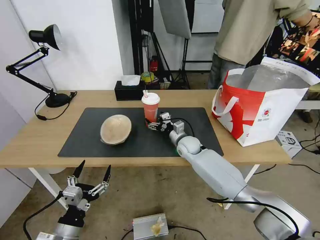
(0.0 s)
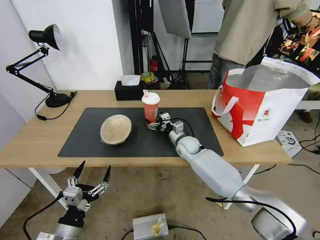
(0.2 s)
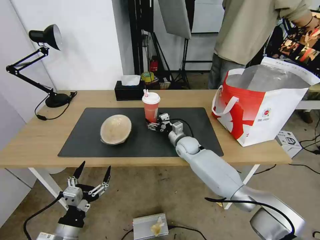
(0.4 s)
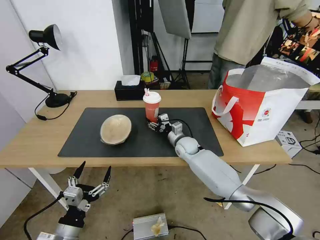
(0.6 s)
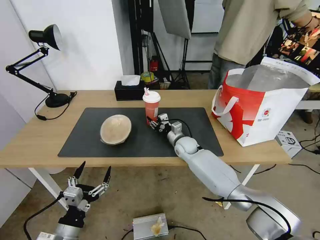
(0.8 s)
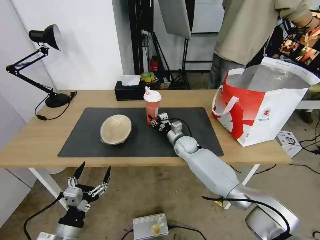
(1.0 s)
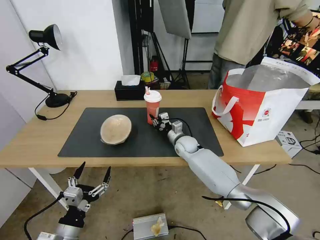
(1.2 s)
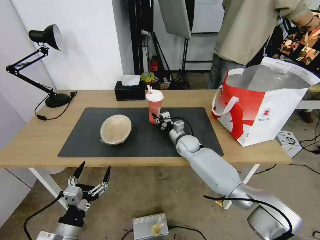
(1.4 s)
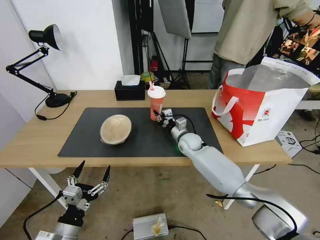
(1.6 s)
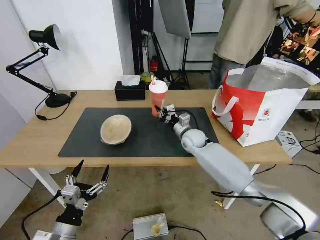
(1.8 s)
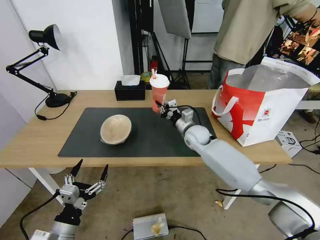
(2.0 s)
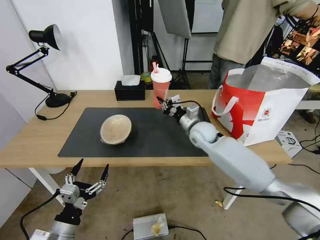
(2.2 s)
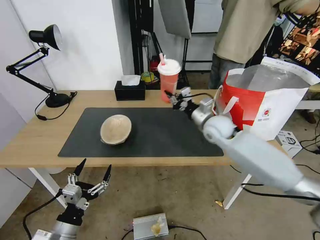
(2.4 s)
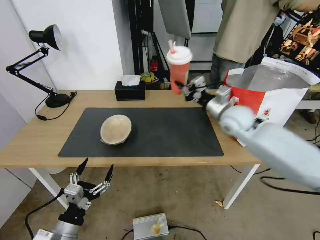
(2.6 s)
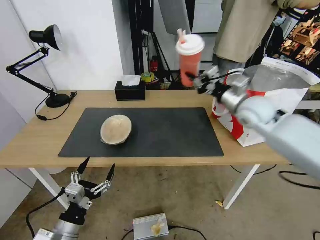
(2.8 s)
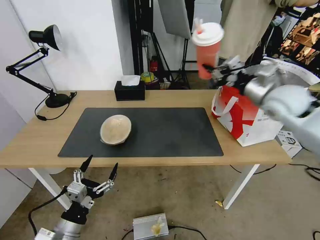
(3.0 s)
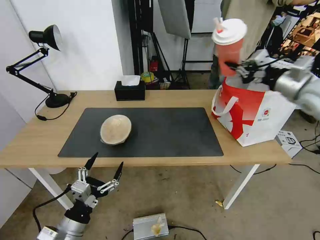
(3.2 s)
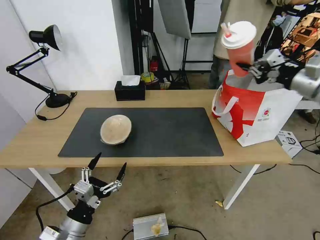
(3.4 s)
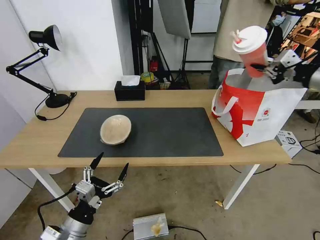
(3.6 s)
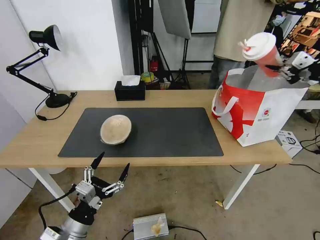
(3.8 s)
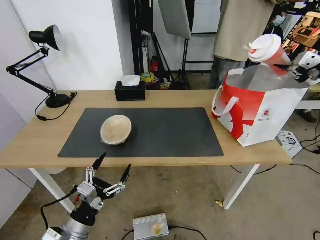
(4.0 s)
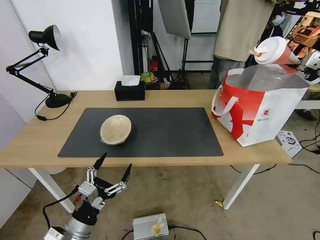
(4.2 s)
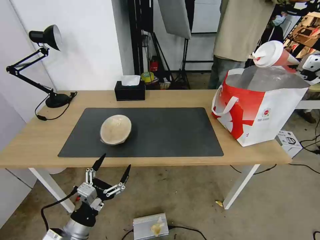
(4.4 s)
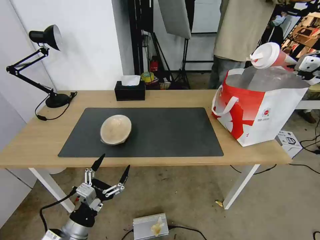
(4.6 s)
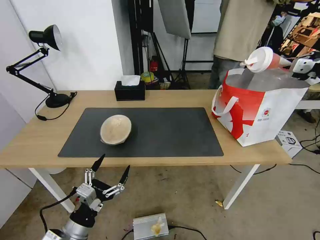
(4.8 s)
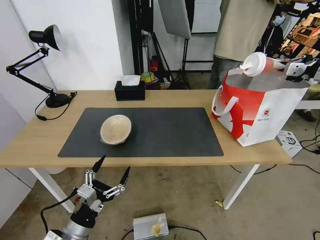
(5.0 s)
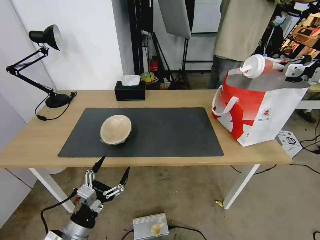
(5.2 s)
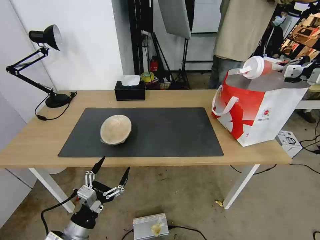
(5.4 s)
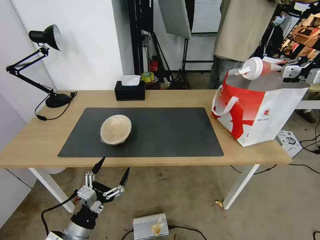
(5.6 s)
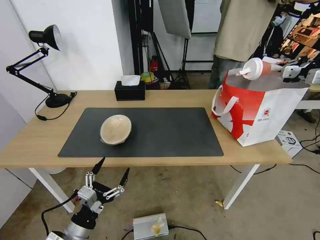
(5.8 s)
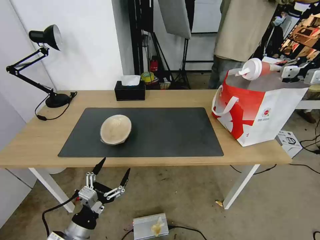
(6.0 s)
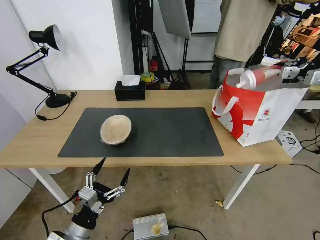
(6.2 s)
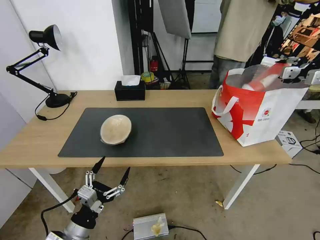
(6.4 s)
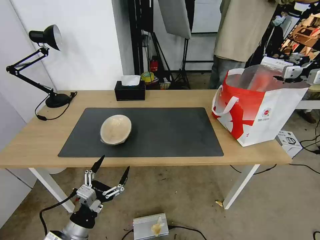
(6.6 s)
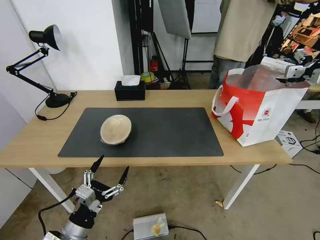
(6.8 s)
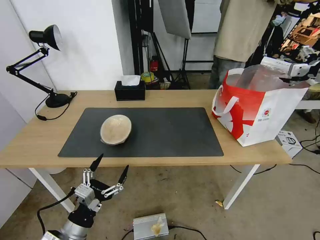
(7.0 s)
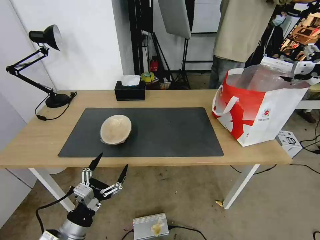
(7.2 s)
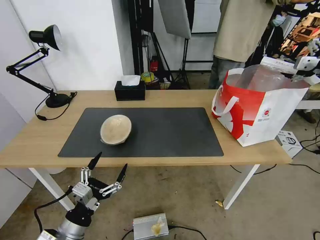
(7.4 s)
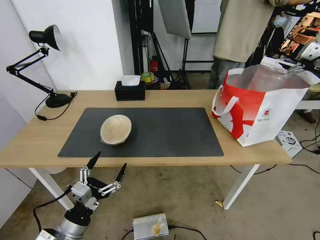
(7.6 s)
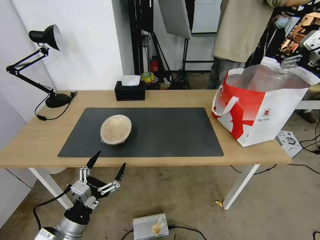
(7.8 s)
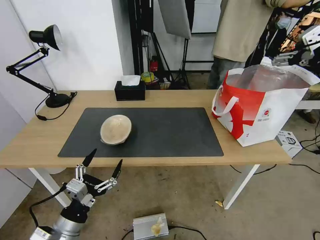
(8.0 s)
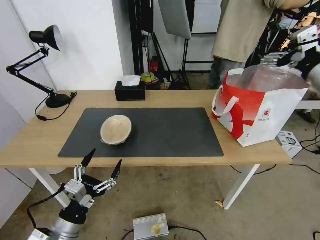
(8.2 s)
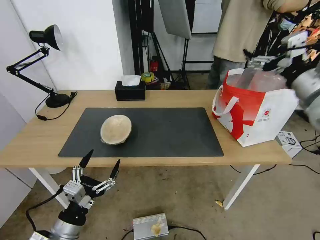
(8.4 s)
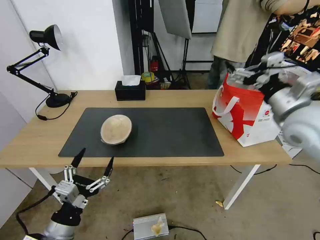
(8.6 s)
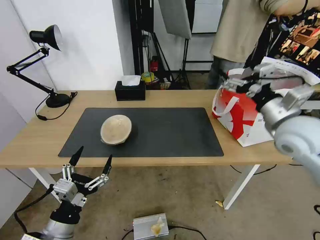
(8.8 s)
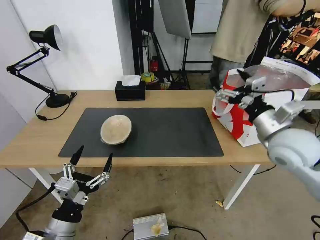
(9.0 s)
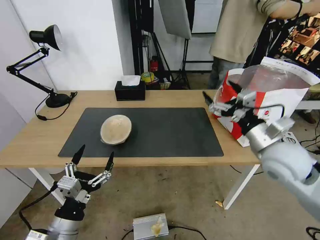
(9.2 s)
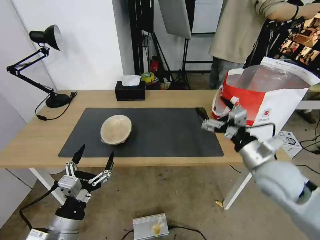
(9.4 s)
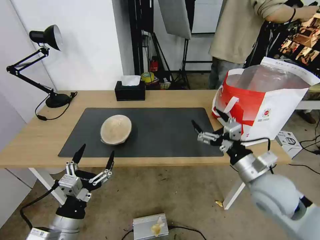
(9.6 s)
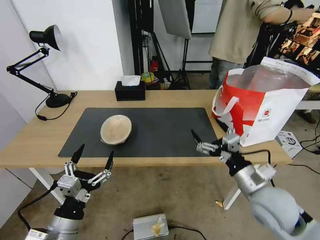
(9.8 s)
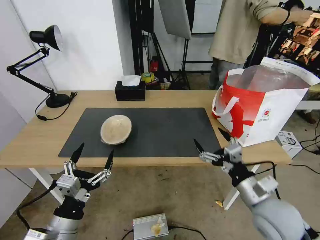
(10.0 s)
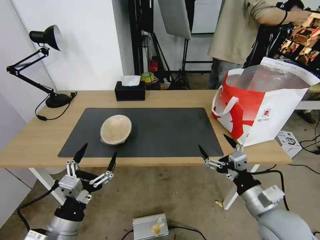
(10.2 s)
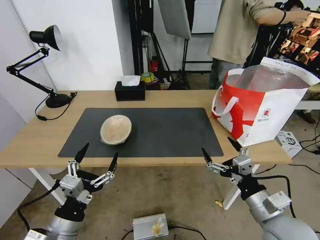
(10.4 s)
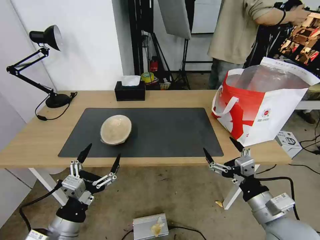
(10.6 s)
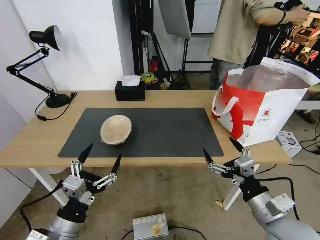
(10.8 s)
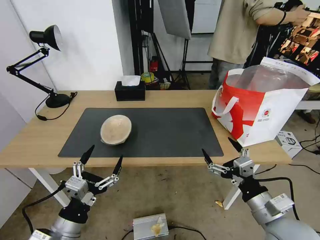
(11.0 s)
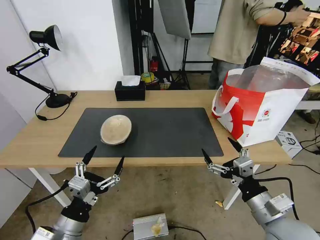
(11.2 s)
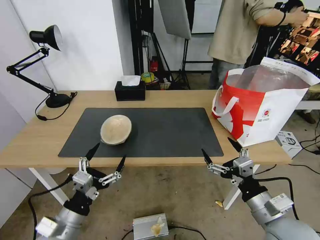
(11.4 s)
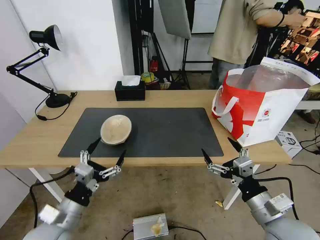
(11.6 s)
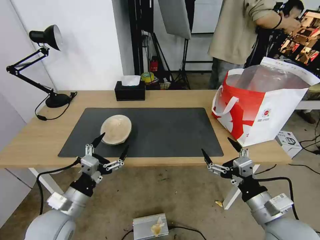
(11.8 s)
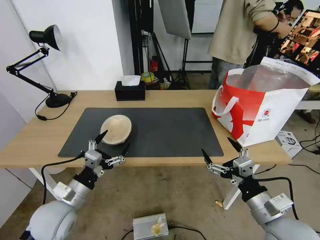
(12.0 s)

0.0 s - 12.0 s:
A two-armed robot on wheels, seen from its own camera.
Task of the whole recording: Pick up the trash from the table and place it into the takeout bag.
0.0 s - 1.6 s: The right gripper closes up.
1.6 s - 3.0 s: The right gripper travels upward and to the right by some 35 cm.
3.0 s - 4.4 s: The right gripper shifts some 20 cm to the right and upward.
4.4 s - 6.0 s: The right gripper travels forward by approximately 5 cm.
6.0 s - 7.6 s: The right gripper goes about 5 cm backward, and opens.
7.6 s - 9.0 s: The right gripper moves to the left, downward and backward, about 25 cm.
9.0 s - 10.4 s: The right gripper is displaced backward and downward by approximately 20 cm.
10.4 s - 12.0 s: The left gripper travels forward by about 10 cm.

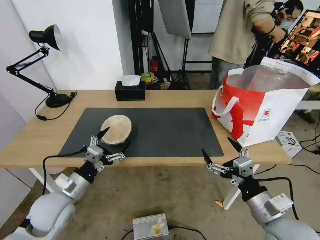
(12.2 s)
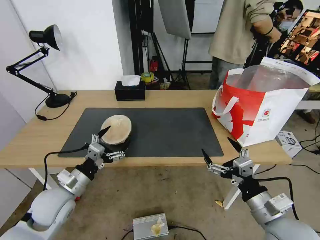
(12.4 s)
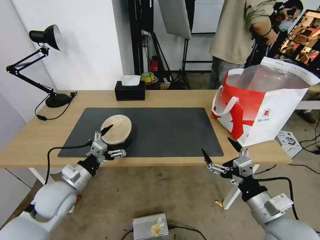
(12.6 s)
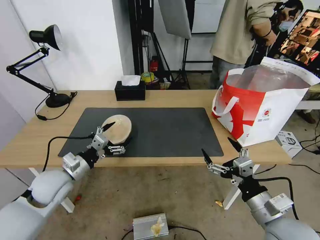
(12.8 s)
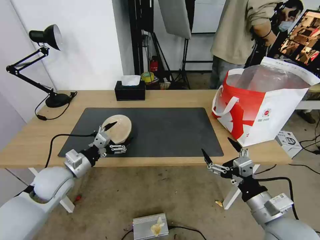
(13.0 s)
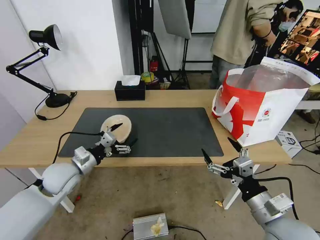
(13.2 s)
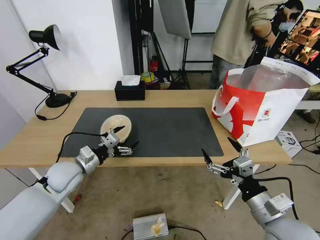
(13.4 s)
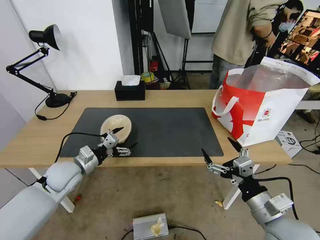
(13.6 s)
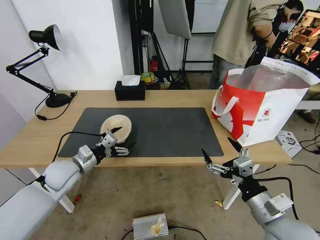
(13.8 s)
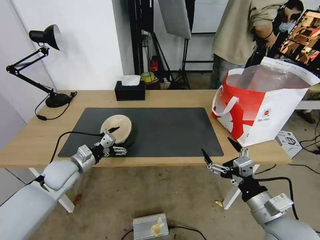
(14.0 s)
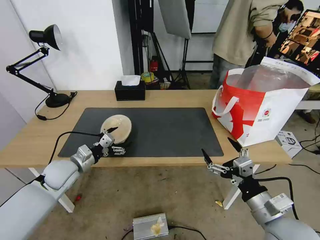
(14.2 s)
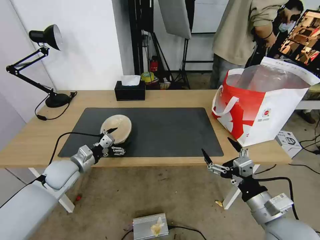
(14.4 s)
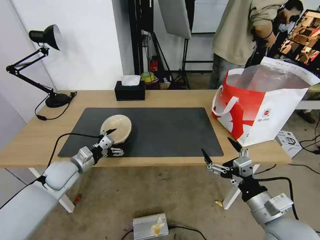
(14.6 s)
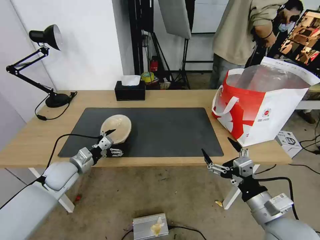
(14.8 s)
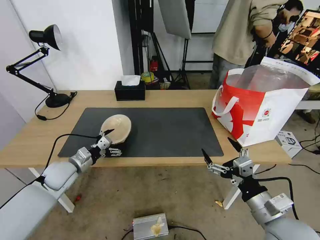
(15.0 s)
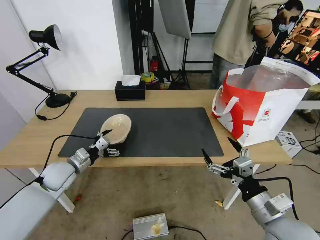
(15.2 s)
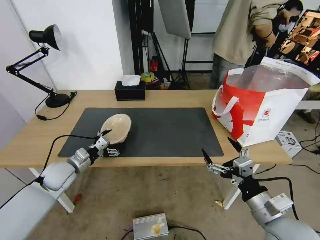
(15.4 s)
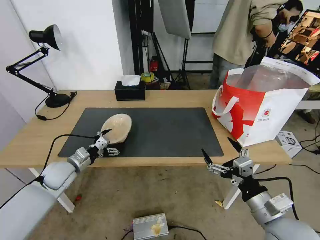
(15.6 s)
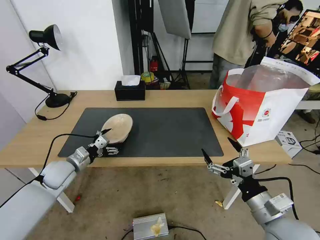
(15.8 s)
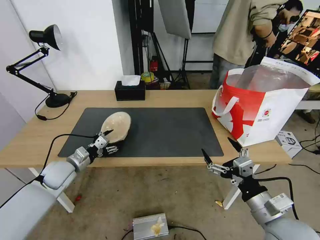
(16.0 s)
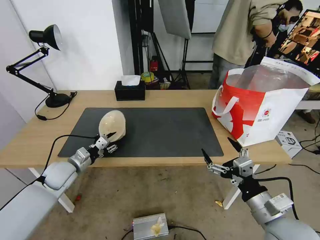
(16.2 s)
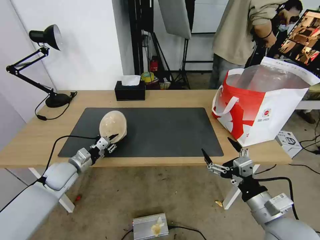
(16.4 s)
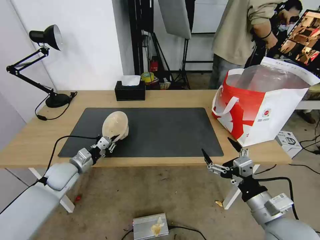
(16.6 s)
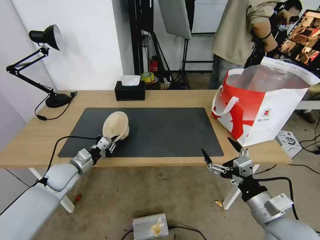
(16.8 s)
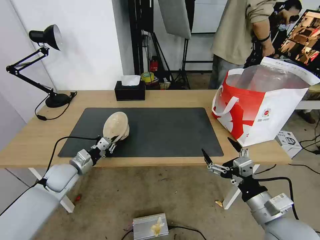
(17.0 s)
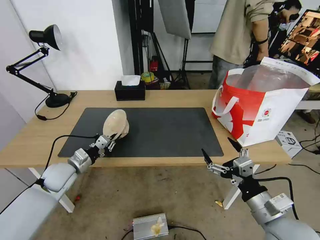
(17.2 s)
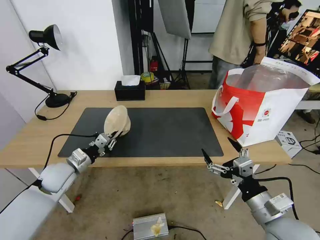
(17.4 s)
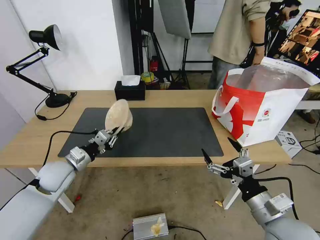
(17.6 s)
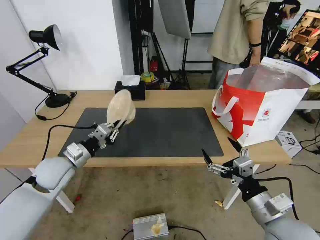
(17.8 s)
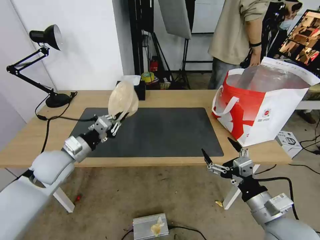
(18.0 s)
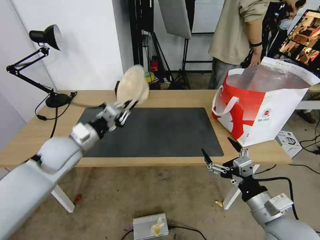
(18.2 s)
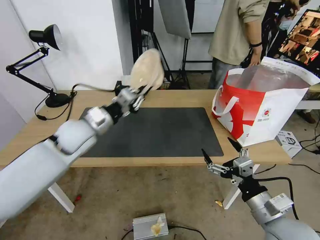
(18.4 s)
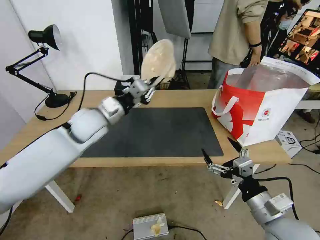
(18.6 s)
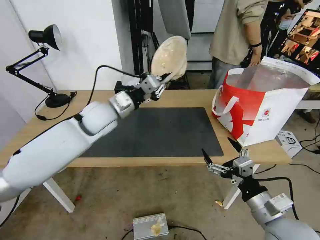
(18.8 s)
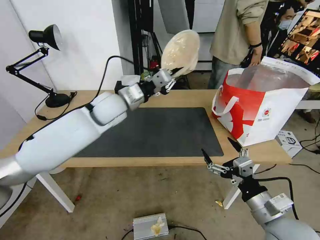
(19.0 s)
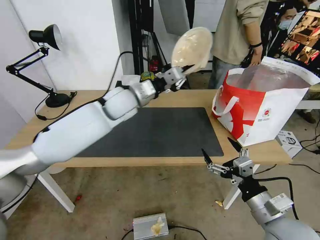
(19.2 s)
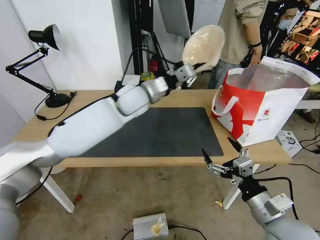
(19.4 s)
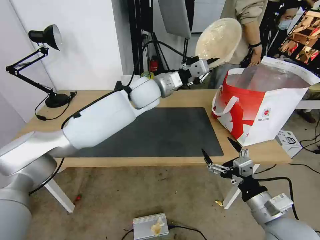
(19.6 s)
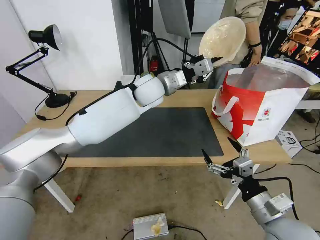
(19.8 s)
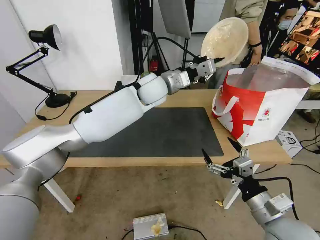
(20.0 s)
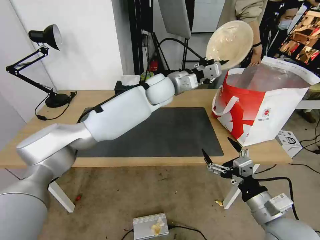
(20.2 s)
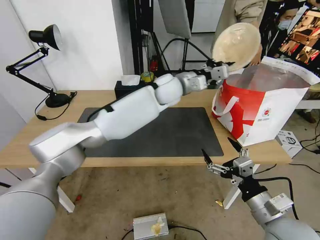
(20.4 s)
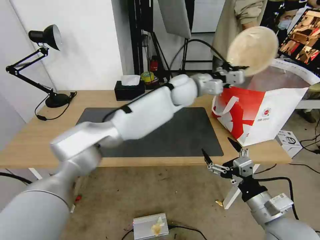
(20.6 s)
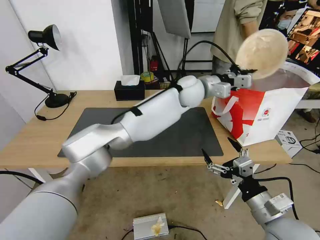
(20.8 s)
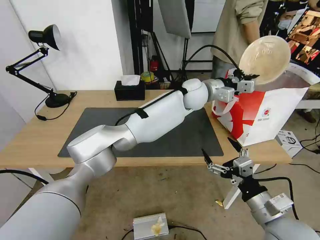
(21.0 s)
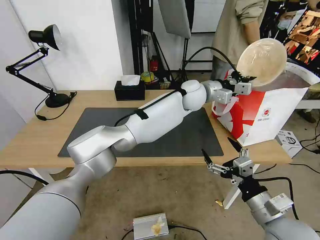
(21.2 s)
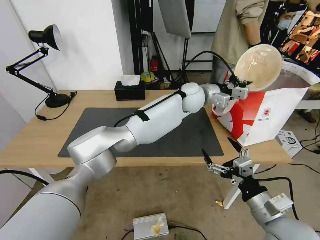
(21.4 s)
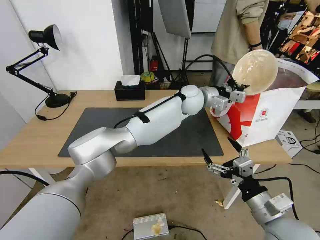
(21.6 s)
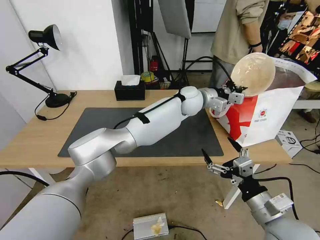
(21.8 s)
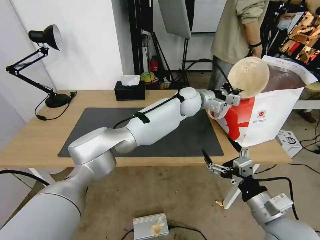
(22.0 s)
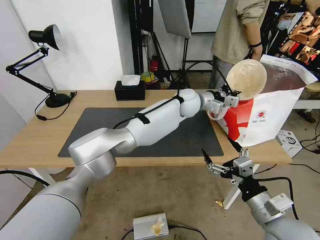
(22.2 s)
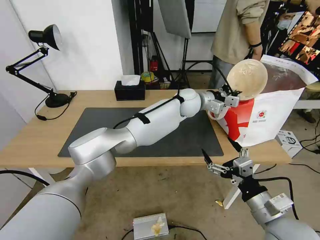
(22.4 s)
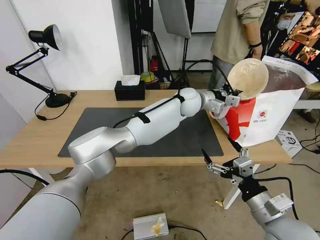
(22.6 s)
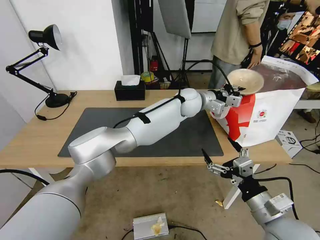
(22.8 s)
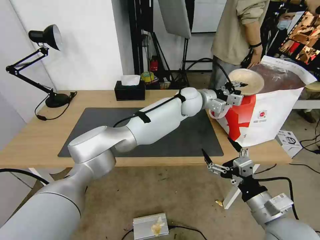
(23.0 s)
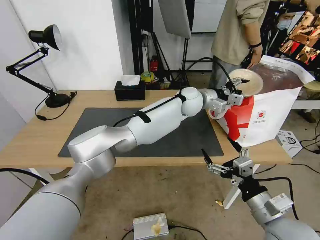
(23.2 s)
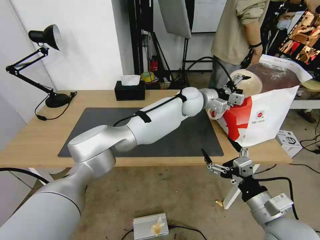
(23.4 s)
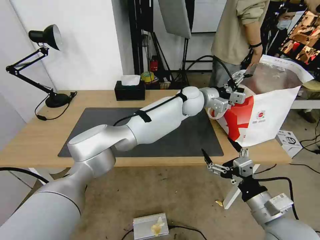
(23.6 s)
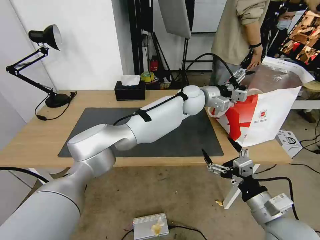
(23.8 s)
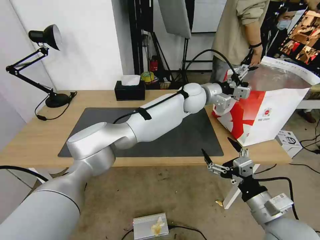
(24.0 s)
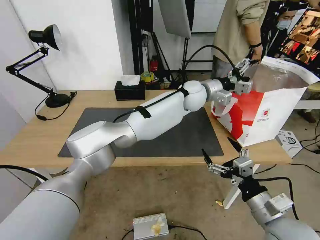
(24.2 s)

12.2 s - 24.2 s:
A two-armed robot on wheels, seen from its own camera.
Task of the whole recording: Pick up the trash from the table and place it into the takeout bag.
12.2 s - 13.8 s: The left gripper travels forward by about 10 cm.
13.8 s - 15.2 s: The grippers stay close to where they were, moving slightly.
15.2 s - 16.6 s: The left gripper closes.
16.6 s - 18.2 s: The left gripper shifts about 15 cm upward and to the right.
18.2 s - 19.8 s: The left gripper moves to the right, forward and upward, some 30 cm.
19.8 s - 21.2 s: The left gripper is displaced to the right by approximately 15 cm.
21.2 s - 22.6 s: The grippers move only a little.
22.6 s - 24.2 s: The left gripper opens its fingers.
